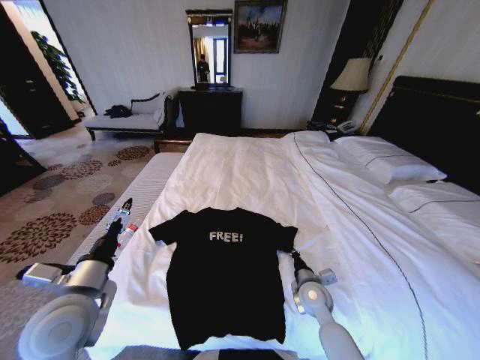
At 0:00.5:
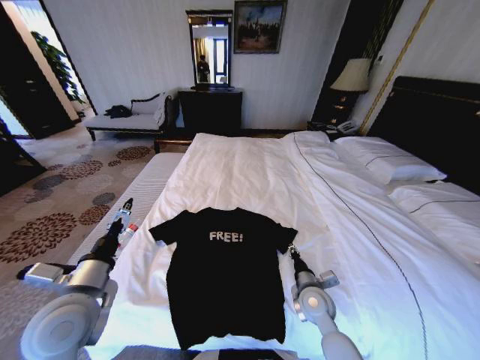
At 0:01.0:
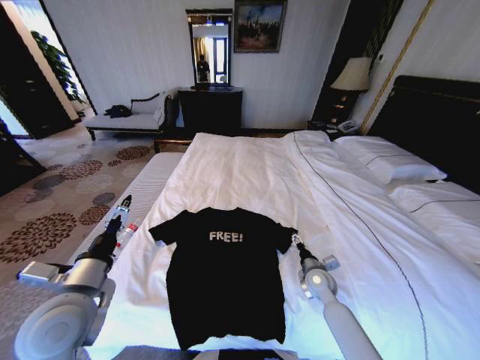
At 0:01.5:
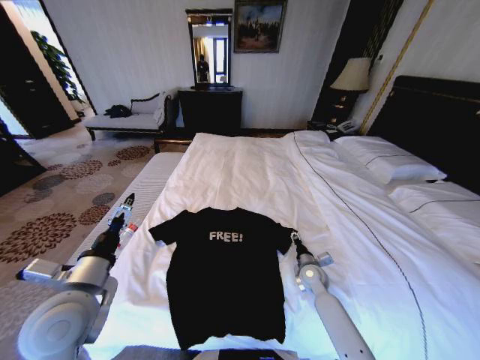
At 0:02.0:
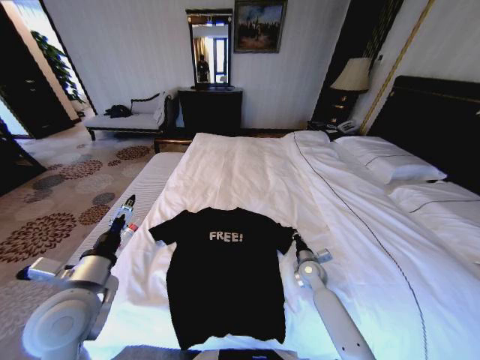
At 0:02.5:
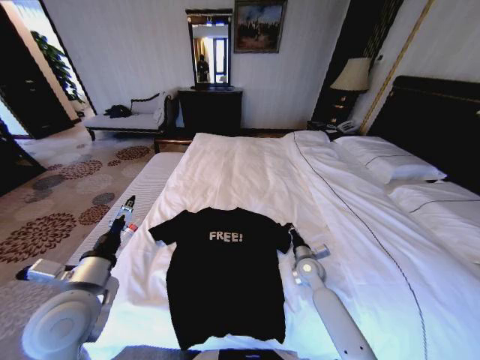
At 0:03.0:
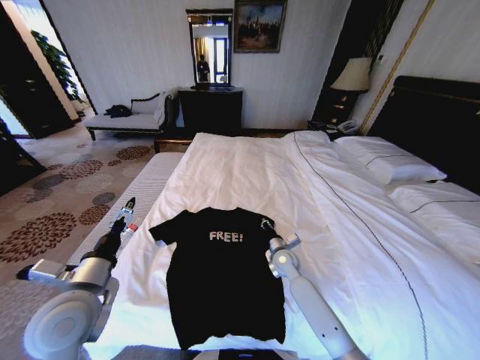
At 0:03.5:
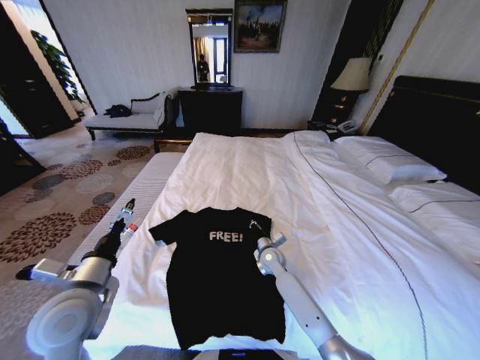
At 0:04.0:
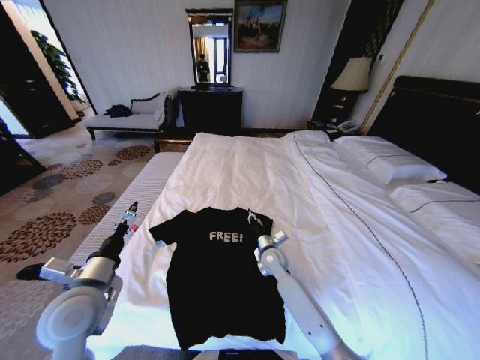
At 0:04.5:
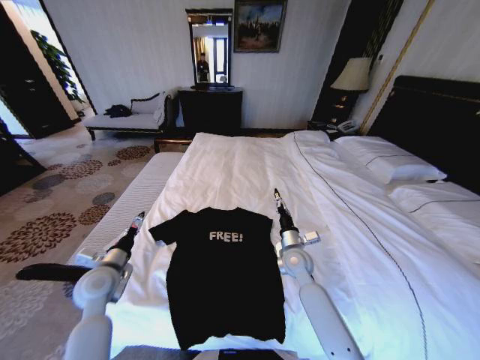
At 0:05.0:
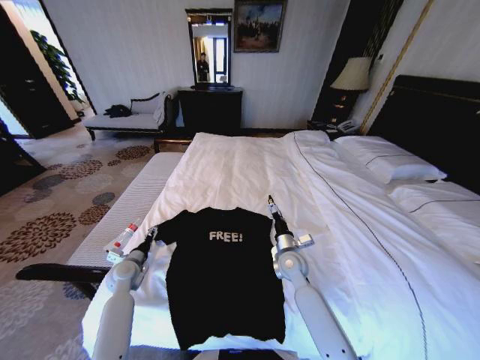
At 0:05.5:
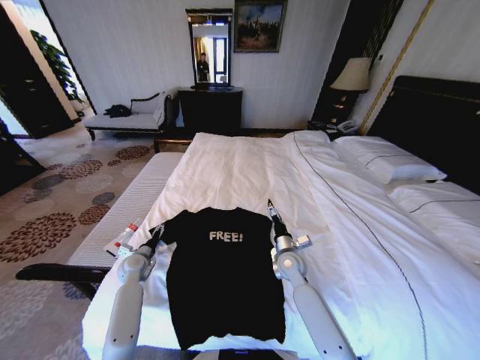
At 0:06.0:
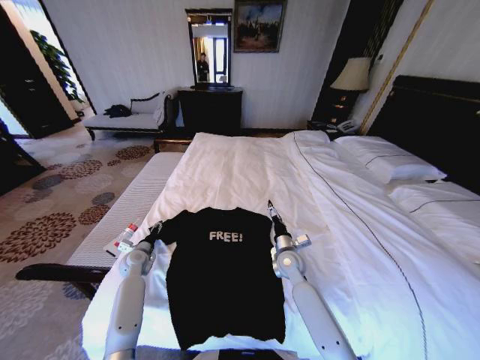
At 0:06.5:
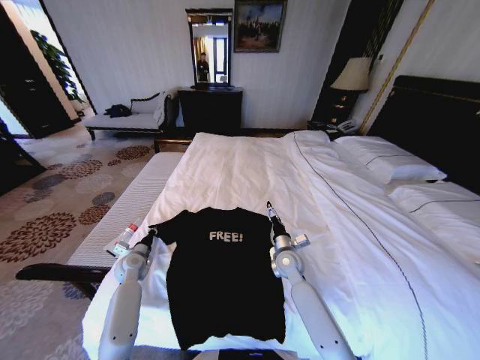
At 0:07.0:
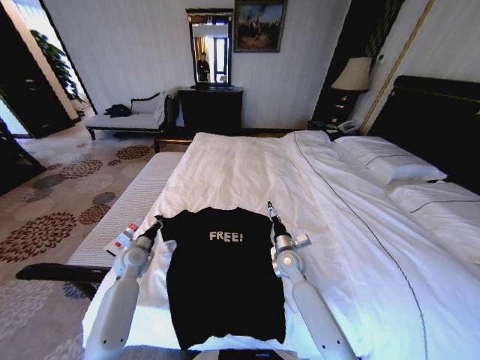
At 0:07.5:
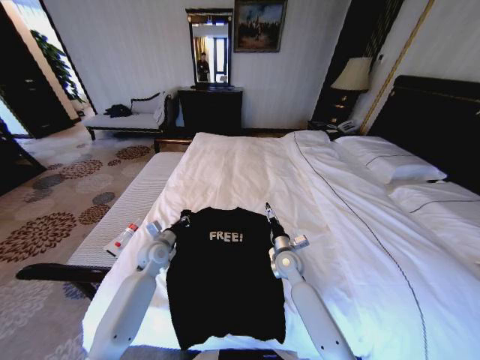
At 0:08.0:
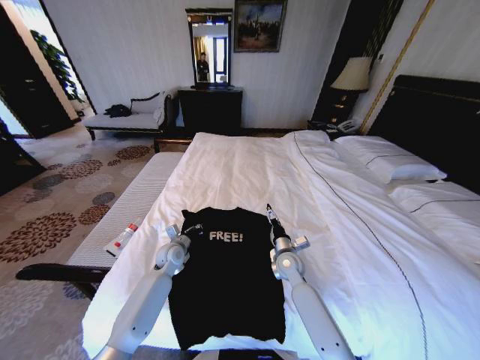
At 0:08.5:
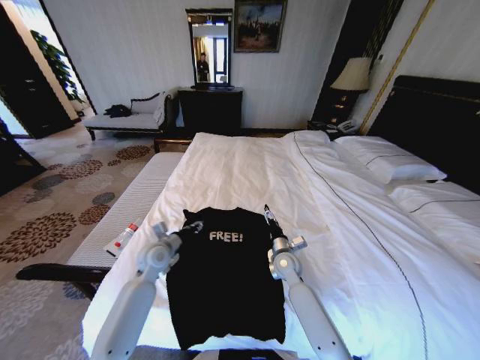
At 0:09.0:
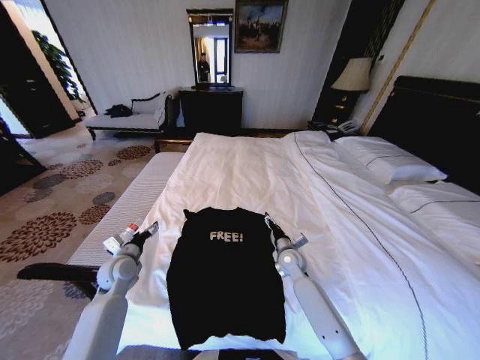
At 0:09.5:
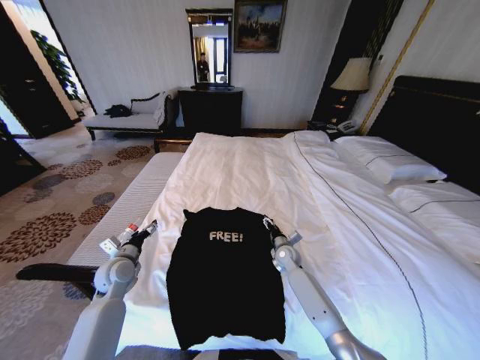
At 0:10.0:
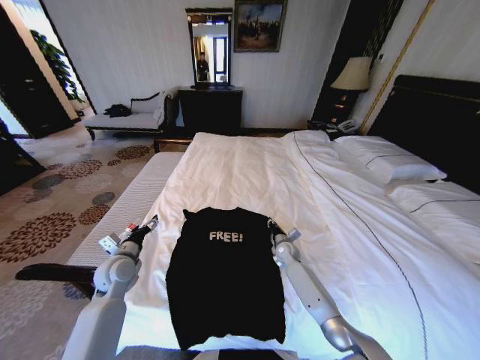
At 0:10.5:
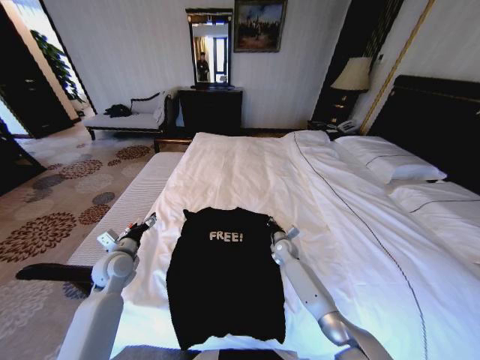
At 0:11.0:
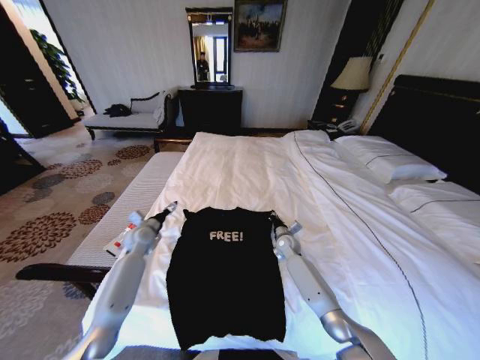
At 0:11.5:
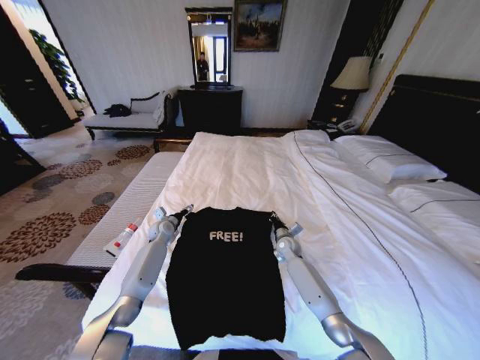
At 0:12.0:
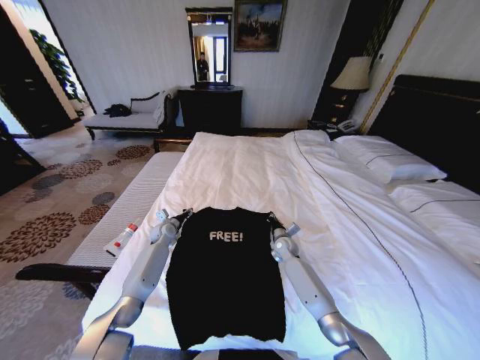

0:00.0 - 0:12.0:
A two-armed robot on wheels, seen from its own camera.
Task of the whole recording: Fold the clothes on the bed.
0:00.0 - 0:02.0: The right gripper travels forward by some 10 cm, and opens, then closes again.
0:02.0 - 0:04.0: The right gripper shifts roughly 15 cm to the left.
0:04.0 - 0:06.0: The right gripper opens up, while the left gripper is displaced downward and forward by some 30 cm.
0:06.0 - 0:08.0: The left gripper goes some 15 cm to the right, and closes its fingers.
0:08.0 - 0:10.0: The right gripper travels forward and downward by about 10 cm, and closes its fingers. Meanwhile the left gripper travels to the left, backward and upward by roughly 15 cm, and opens up.
0:10.0 - 0:12.0: The left gripper goes roughly 20 cm forward and downward, and closes.

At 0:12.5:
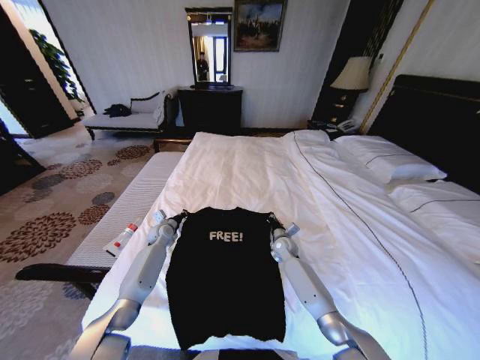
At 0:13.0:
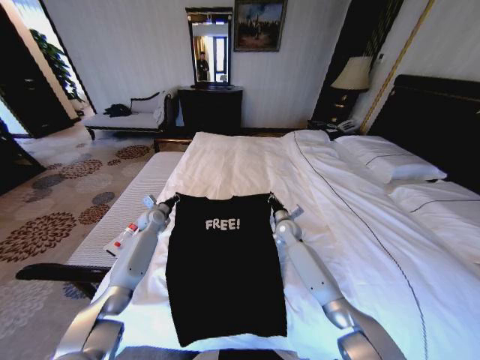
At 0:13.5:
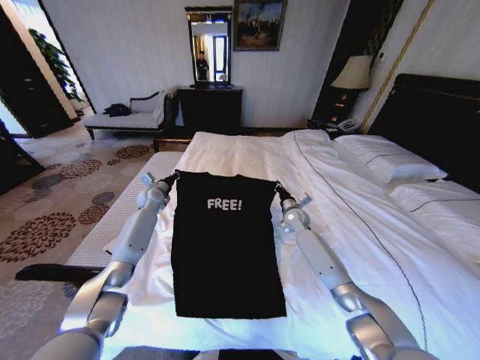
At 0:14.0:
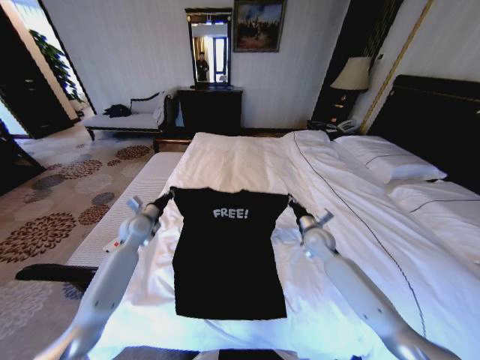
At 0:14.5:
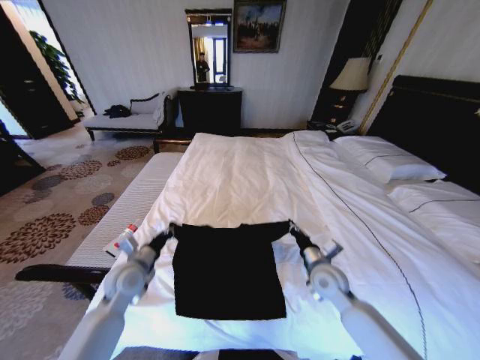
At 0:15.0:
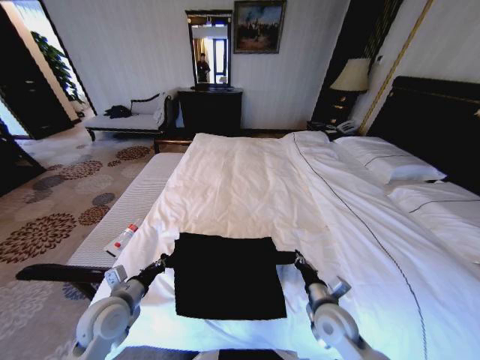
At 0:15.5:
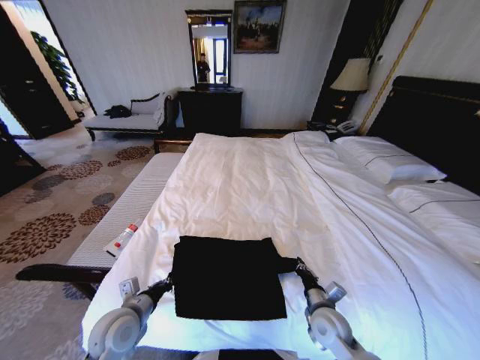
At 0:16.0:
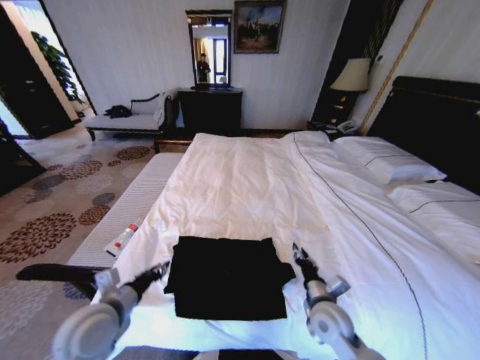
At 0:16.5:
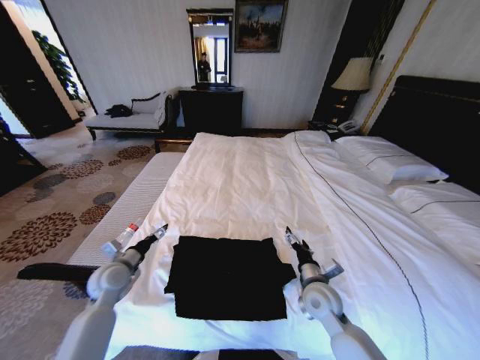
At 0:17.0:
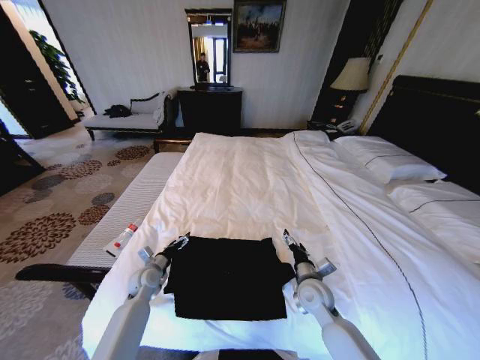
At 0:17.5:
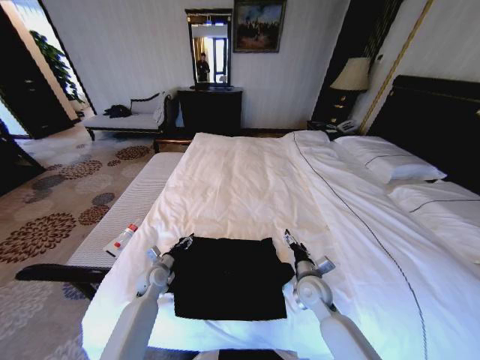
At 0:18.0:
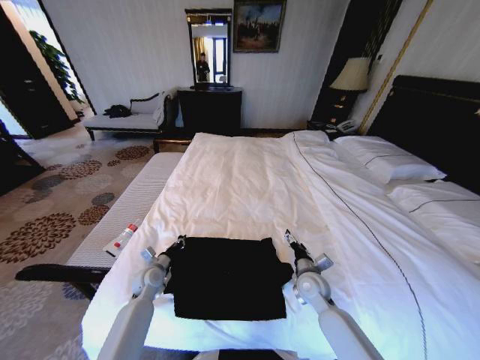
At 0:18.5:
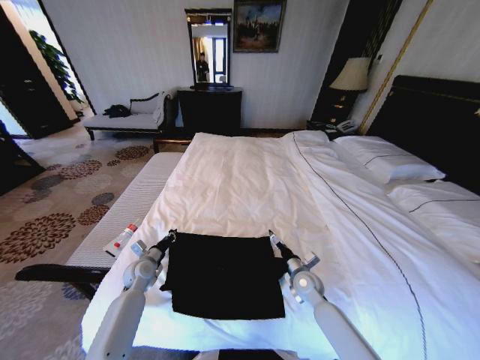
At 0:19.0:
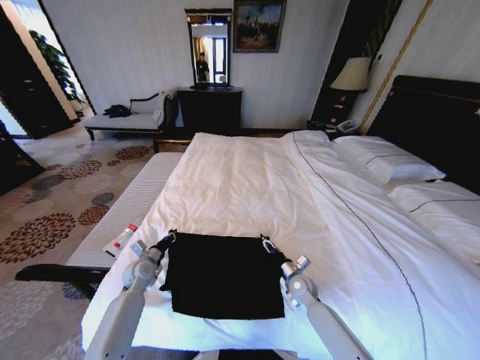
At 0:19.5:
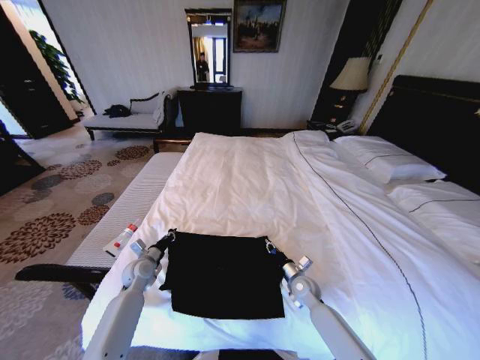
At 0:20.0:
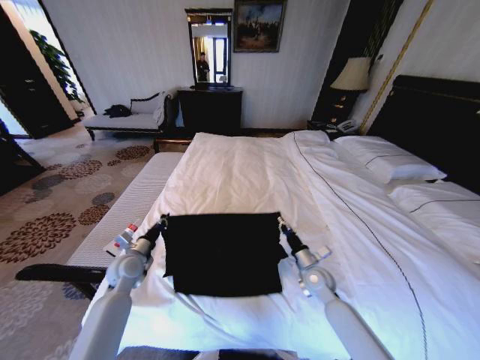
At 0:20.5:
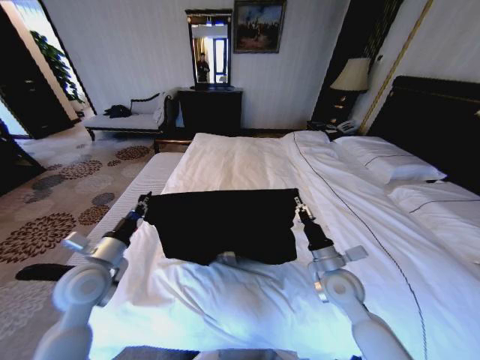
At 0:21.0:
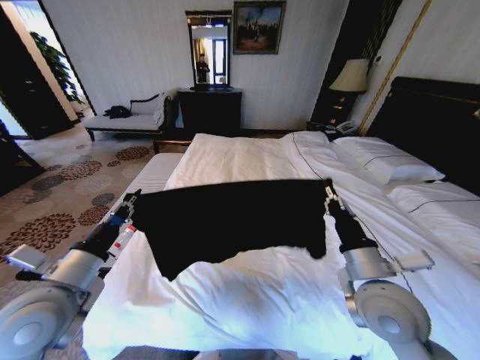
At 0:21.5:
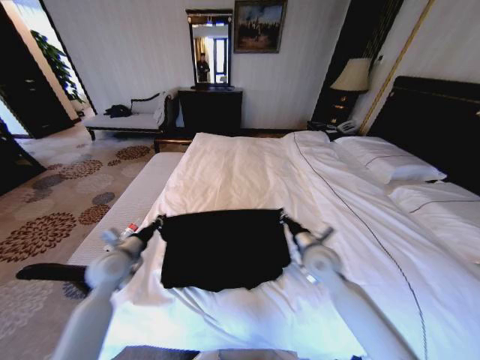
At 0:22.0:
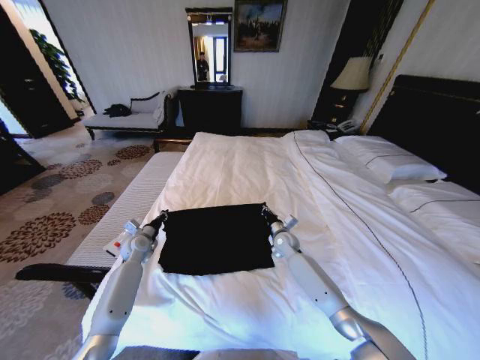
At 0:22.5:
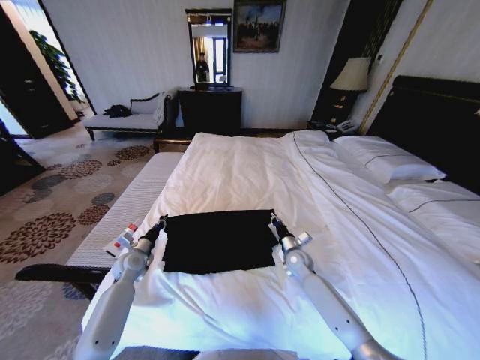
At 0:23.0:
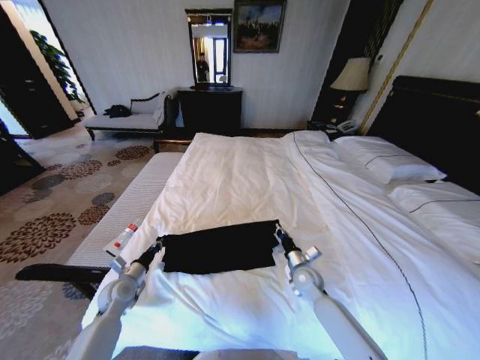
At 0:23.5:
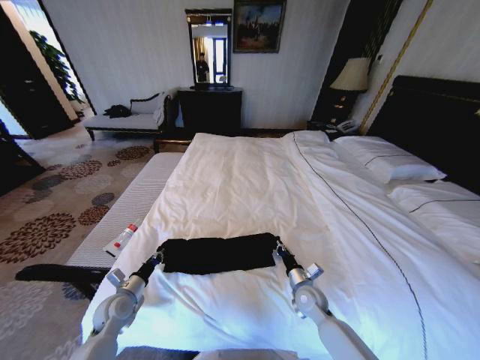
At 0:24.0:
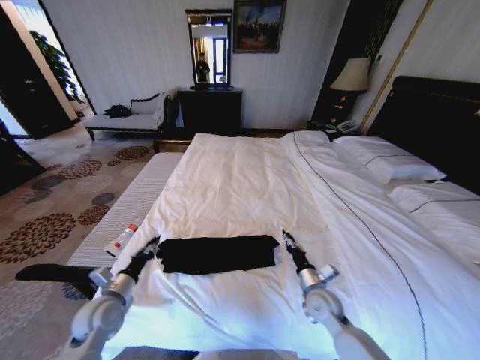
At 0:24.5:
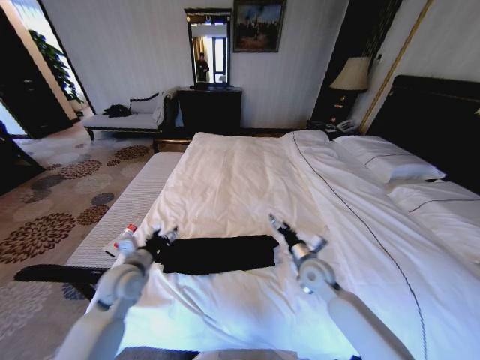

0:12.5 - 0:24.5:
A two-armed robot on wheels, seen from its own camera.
Task of the whole recording: Fold the clothes on the bed.
0:12.5 - 0:14.5: The right gripper travels backward and upward by approximately 20 cm; the left gripper is displaced backward by about 25 cm.
0:14.5 - 0:16.5: The left gripper is displaced to the left by some 5 cm, reaches about 10 cm backward, then returns, and opens. Meanwhile the right gripper opens up.
0:16.5 - 0:18.5: The grippers both shift downward and forward by roughly 10 cm. The left gripper closes its fingers.
0:18.5 - 0:20.5: The left gripper goes about 20 cm upward and backward. Meanwhile the right gripper shifts approximately 15 cm upward, and closes.
0:20.5 - 0:22.5: The left gripper moves forward and backward over about 25 cm, changing direction 2 times, while the right gripper goes forward and backward, approximately 25 cm each way, reversing 2 times.
0:22.5 - 0:24.5: The right gripper travels upward and backward by about 10 cm, and opens its fingers. Meanwhile the left gripper is displaced upward, backward and to the right by about 15 cm, and opens.

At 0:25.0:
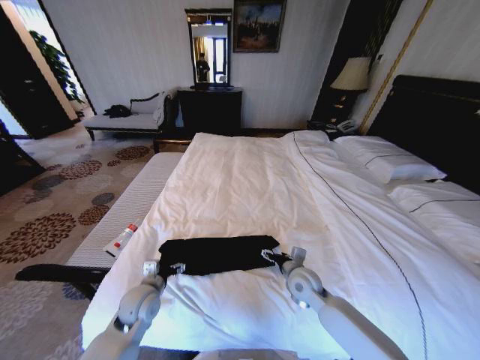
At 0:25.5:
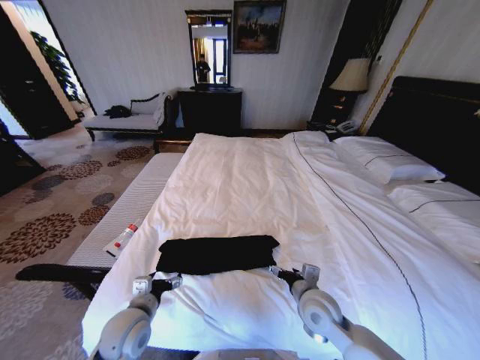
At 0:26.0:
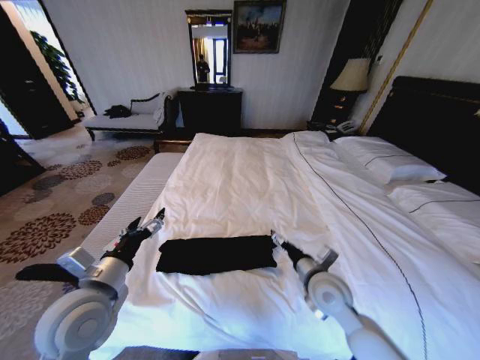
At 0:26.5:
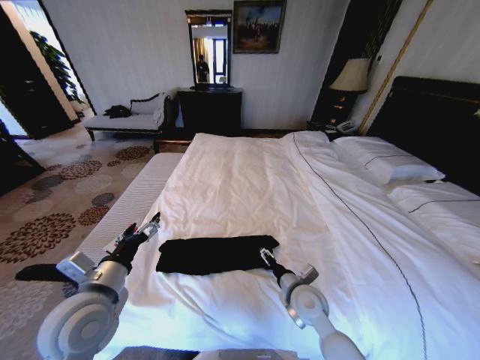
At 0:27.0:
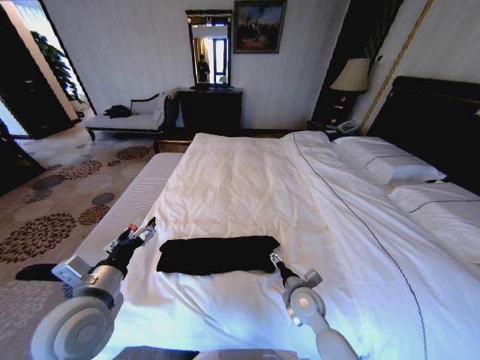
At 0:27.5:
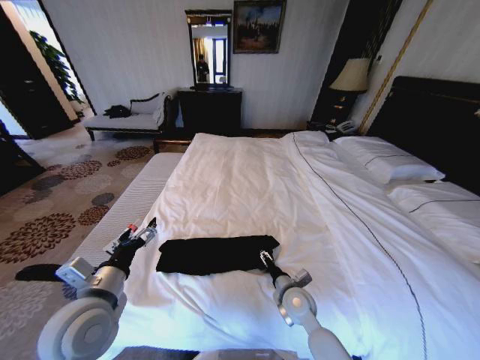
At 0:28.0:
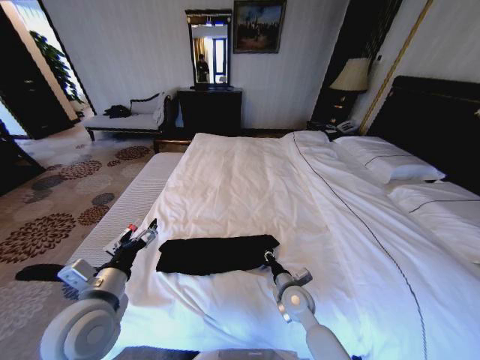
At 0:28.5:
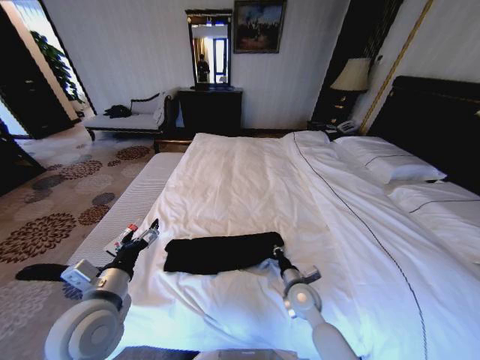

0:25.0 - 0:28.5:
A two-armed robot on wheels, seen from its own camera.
Task of the whole recording: Fold the clothes on the bed.
0:25.0 - 0:27.0: The left gripper goes some 15 cm upward and backward; the right gripper reaches roughly 10 cm upward, then returns.
0:27.0 - 0:28.5: The right gripper closes its fingers.
